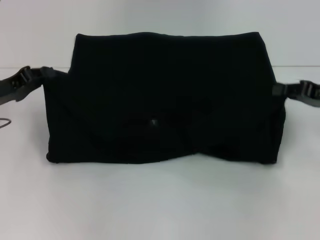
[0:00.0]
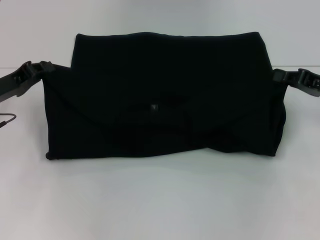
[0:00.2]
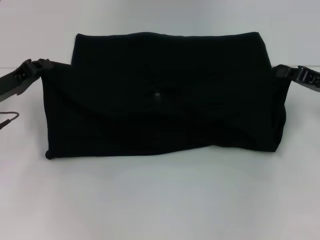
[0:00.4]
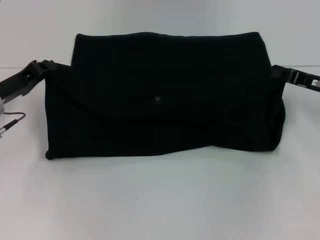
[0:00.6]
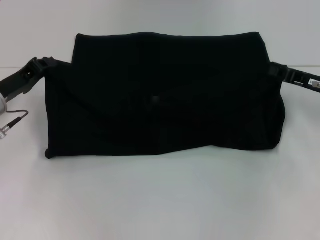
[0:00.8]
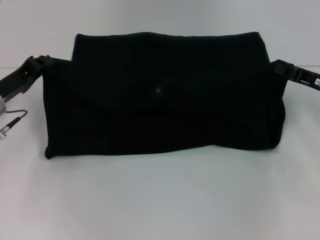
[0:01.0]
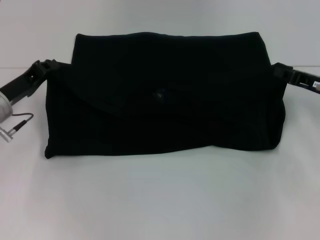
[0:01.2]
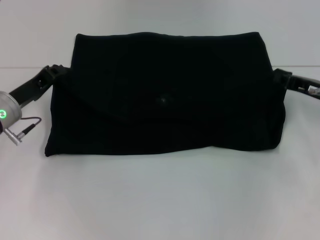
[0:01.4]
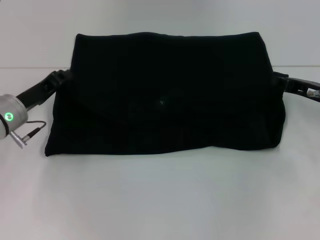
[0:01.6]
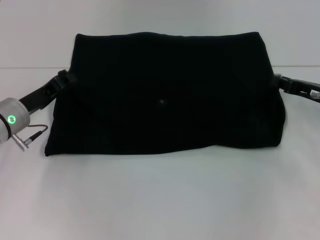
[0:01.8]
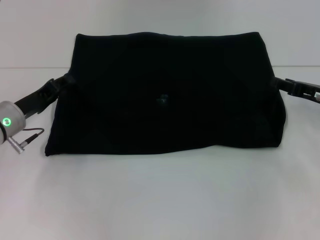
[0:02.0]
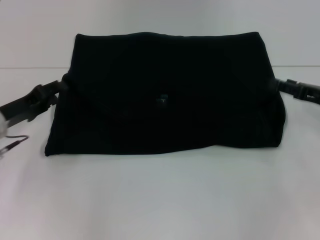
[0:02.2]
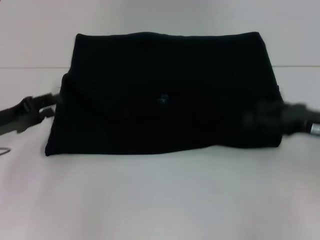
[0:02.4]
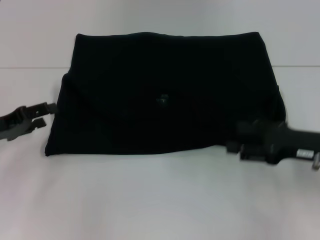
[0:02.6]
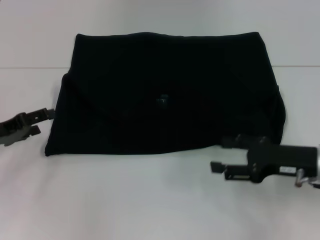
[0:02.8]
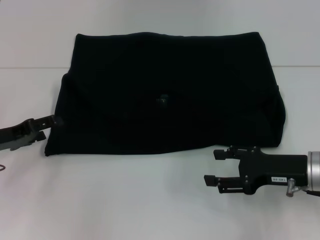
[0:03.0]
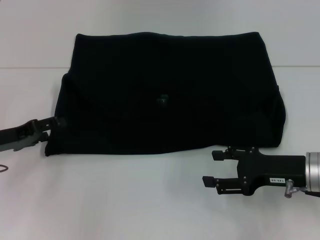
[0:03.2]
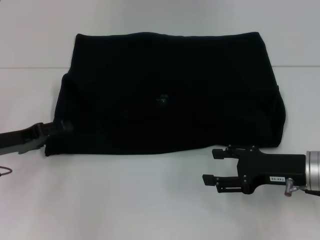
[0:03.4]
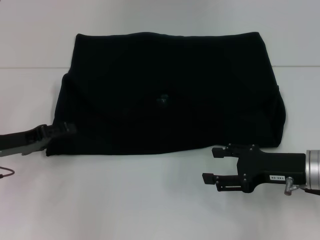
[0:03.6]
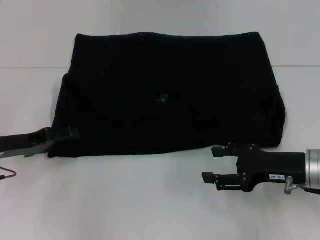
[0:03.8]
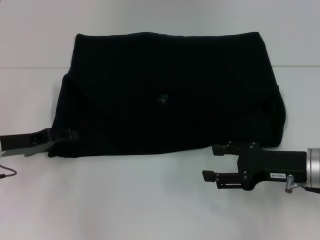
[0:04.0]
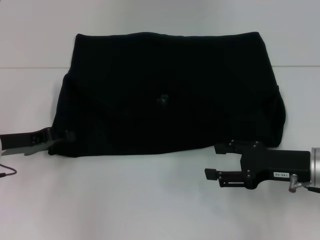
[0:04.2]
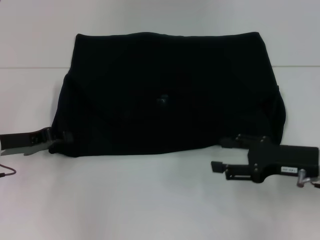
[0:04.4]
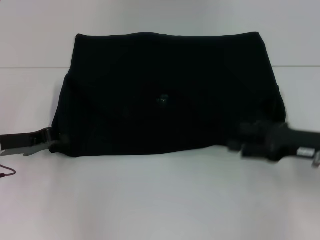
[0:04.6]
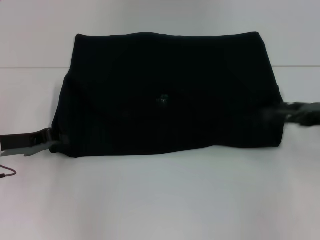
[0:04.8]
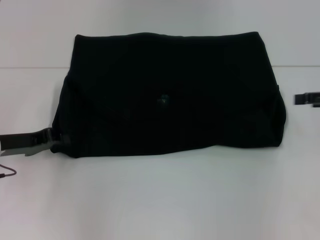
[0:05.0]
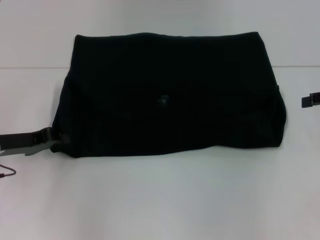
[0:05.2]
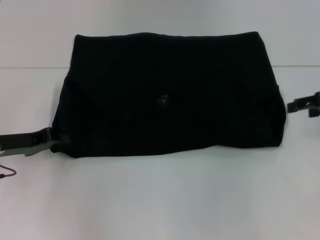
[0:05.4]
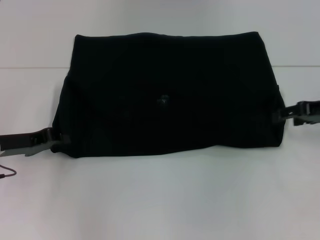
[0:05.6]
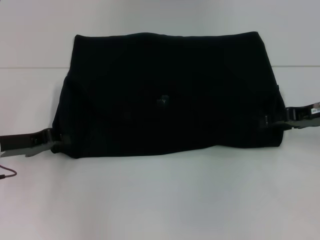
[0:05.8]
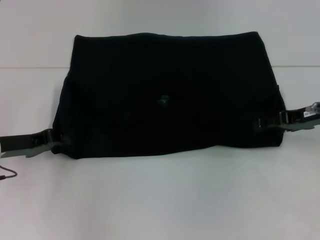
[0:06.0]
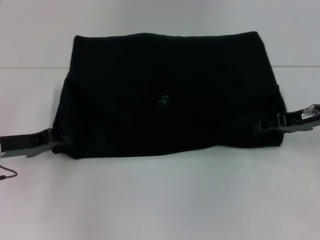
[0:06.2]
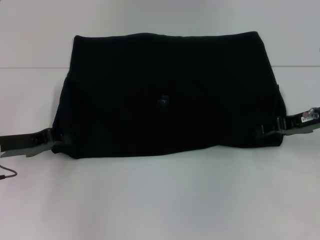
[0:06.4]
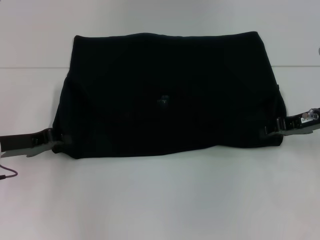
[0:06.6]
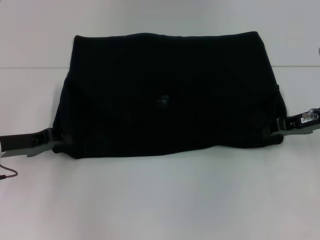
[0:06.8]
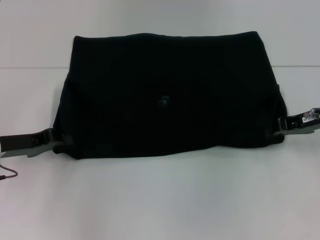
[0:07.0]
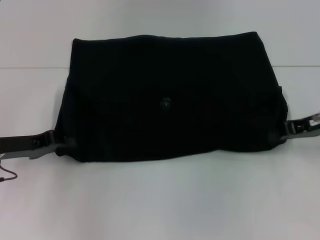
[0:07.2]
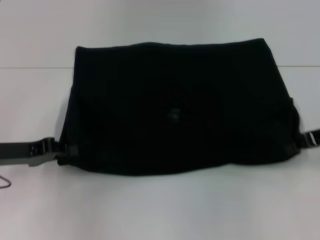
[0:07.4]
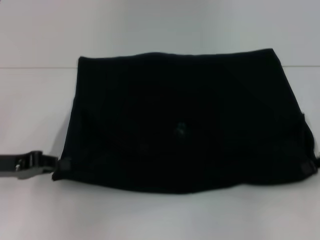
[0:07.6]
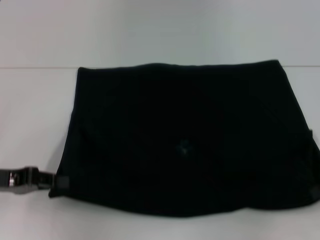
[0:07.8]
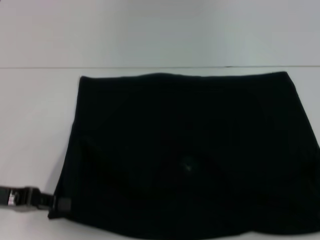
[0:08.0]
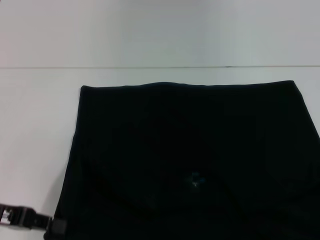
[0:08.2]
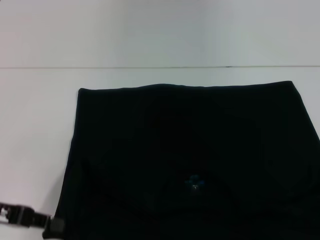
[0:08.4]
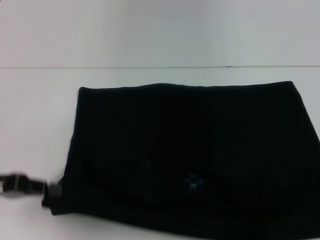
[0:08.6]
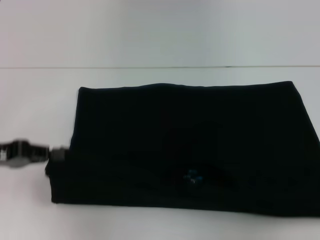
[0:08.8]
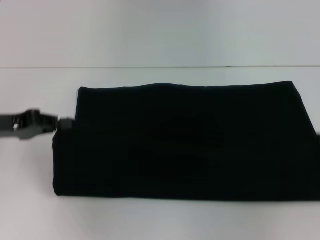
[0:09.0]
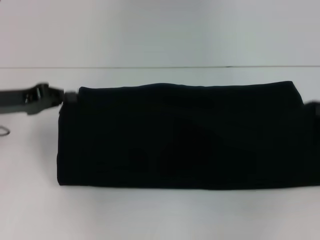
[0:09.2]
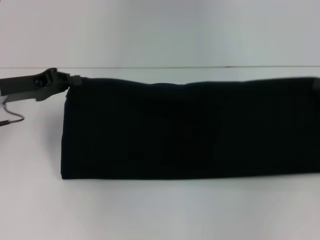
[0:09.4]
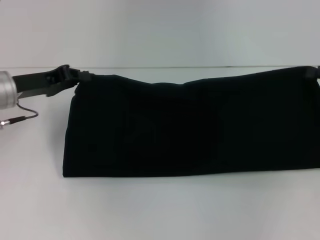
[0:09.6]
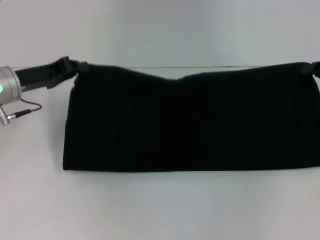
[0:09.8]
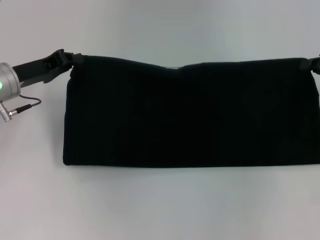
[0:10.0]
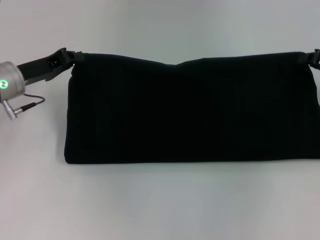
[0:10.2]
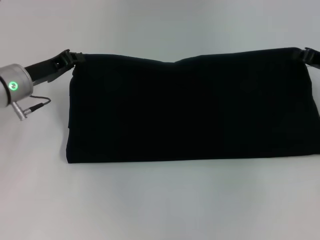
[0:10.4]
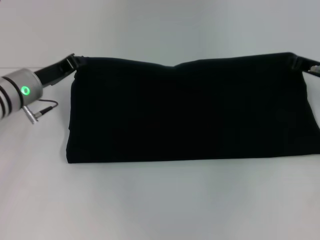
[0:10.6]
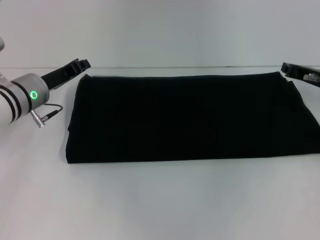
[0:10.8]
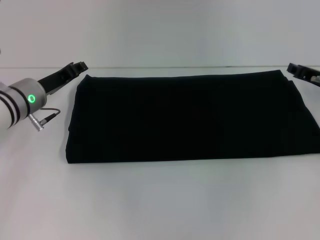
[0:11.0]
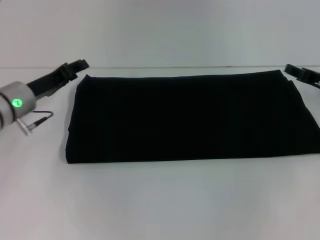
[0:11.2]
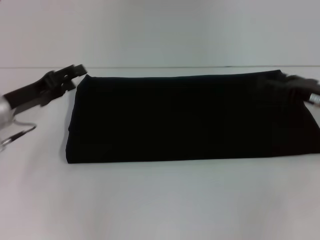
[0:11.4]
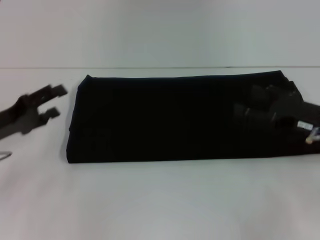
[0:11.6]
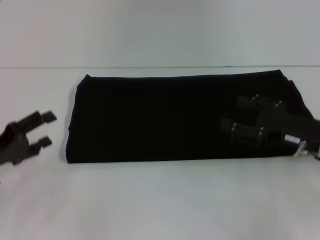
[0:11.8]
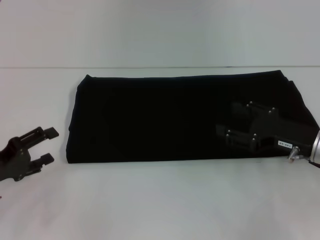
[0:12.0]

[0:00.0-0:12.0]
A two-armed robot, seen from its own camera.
Step, 0:00.0 to 0:02.0: Fold the clothes with your left hand.
Step, 0:00.0 to 0:02.0: Fold the clothes with your right hand.
Step, 0:02.2 to 0:08.2: Pull the clothes with your left hand.
Step, 0:02.2 to 0:08.2: Pull the clothes with your right hand.
Step, 0:08.4 to 0:10.8: Fold the clothes with your right hand.
0:00.0 to 0:01.6: The left gripper shifts about 5 cm to the right, while the right gripper changes place by roughly 5 cm.
0:01.6 to 0:03.0: The left gripper travels to the left by approximately 5 cm, and opens; the right gripper shifts approximately 10 cm backward, and opens.
0:03.0 to 0:04.4: The left gripper closes up.
0:04.4 to 0:06.0: The left gripper closes its fingers. Meanwhile the right gripper is displaced forward by about 10 cm, and reaches approximately 10 cm to the right, then returns.
0:06.0 to 0:07.6: The right gripper shifts some 5 cm to the right, and closes its fingers.
0:07.6 to 0:09.0: The left gripper shifts by roughly 5 cm.
0:09.0 to 0:10.4: The left gripper shifts about 10 cm forward and to the right. Meanwhile the right gripper is displaced forward and to the left by about 10 cm.
0:10.4 to 0:12.0: Both grippers travel together backward, to the left and downward, about 15 cm. The left gripper opens. Meanwhile the right gripper opens up.

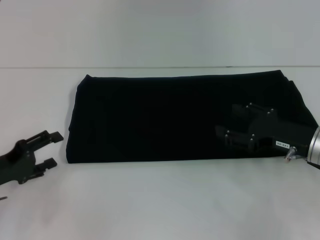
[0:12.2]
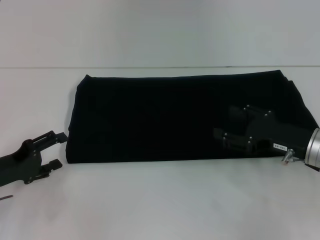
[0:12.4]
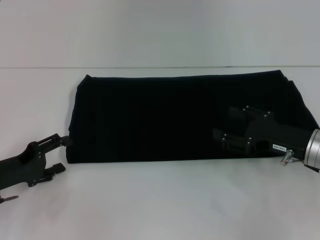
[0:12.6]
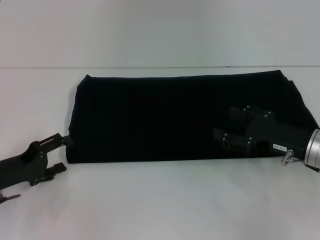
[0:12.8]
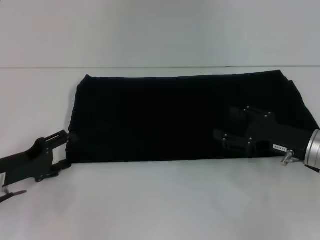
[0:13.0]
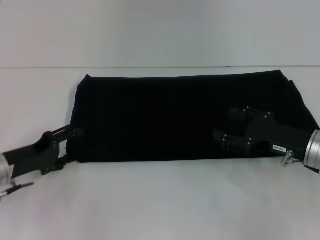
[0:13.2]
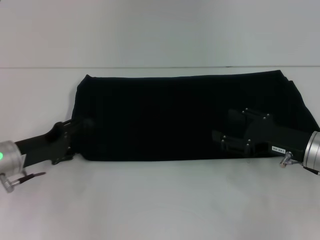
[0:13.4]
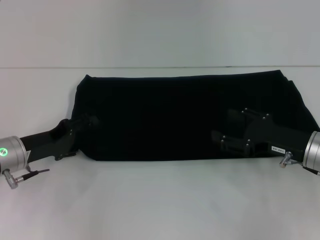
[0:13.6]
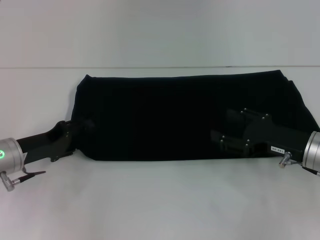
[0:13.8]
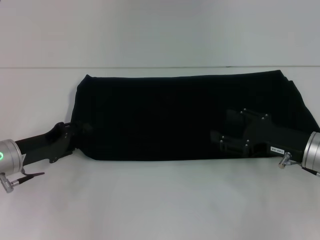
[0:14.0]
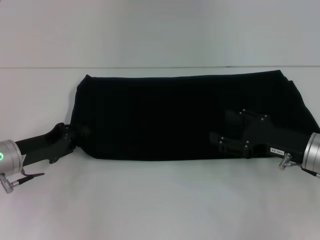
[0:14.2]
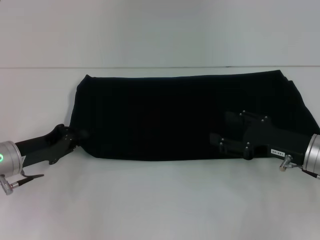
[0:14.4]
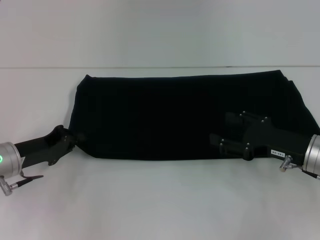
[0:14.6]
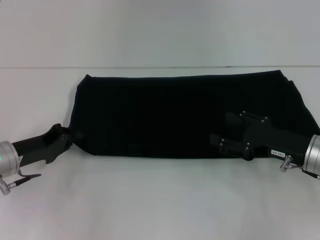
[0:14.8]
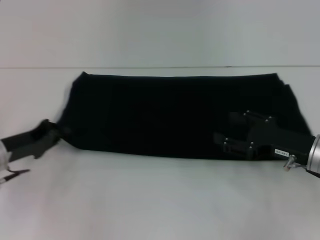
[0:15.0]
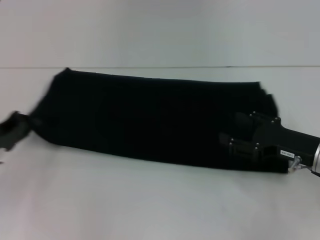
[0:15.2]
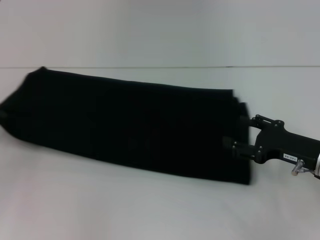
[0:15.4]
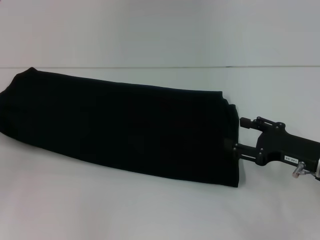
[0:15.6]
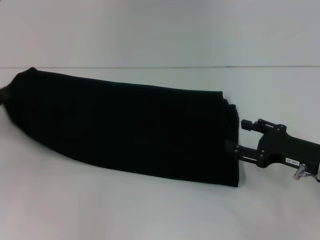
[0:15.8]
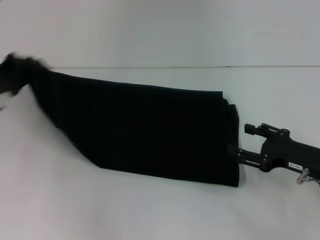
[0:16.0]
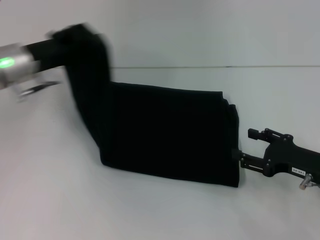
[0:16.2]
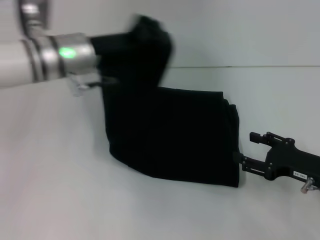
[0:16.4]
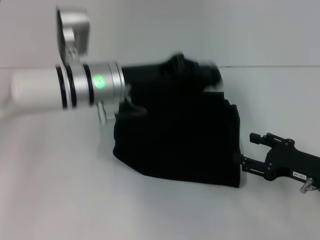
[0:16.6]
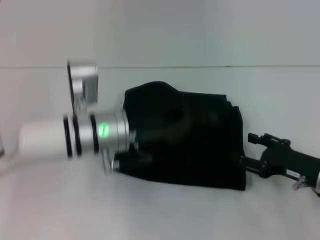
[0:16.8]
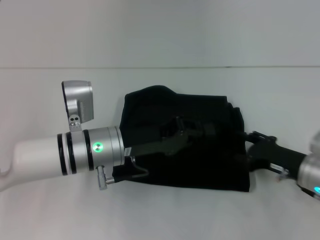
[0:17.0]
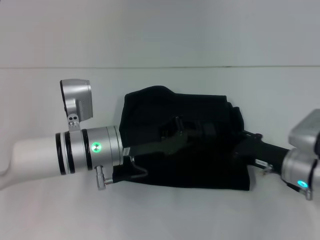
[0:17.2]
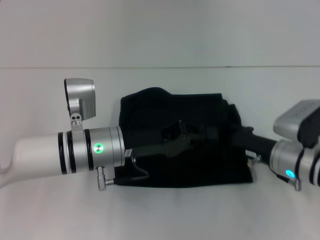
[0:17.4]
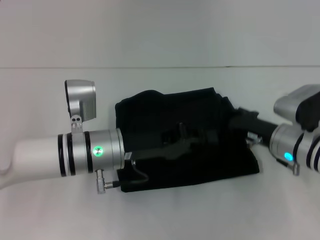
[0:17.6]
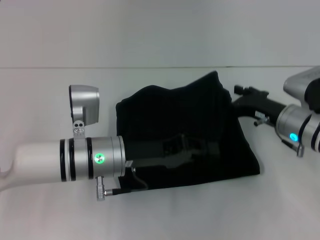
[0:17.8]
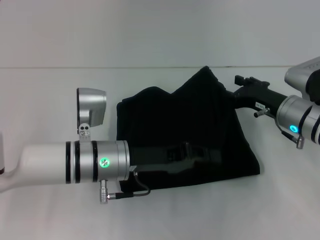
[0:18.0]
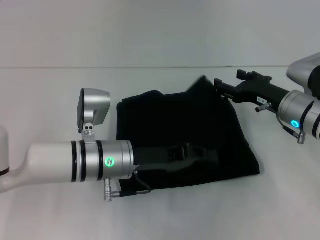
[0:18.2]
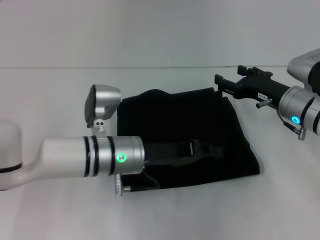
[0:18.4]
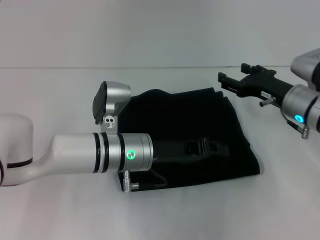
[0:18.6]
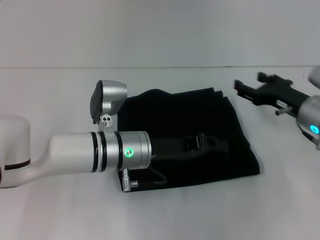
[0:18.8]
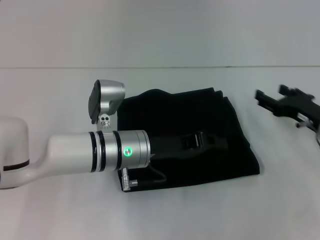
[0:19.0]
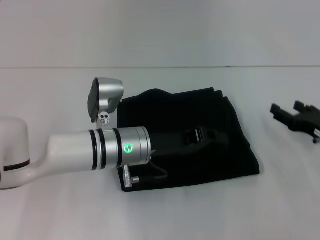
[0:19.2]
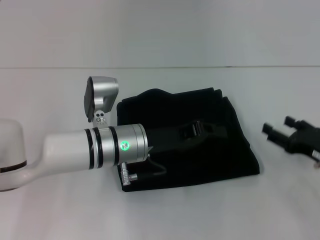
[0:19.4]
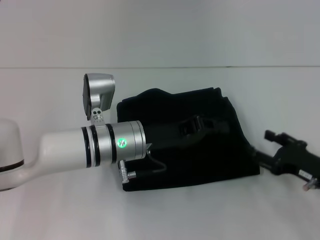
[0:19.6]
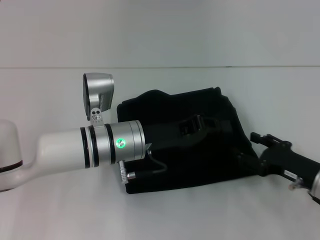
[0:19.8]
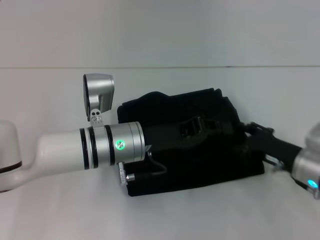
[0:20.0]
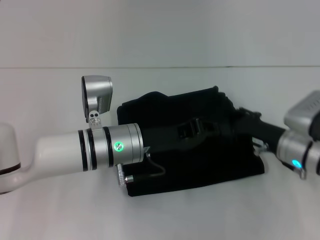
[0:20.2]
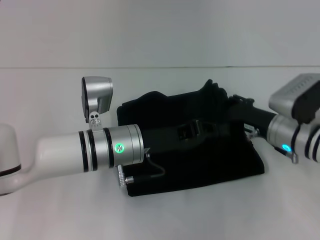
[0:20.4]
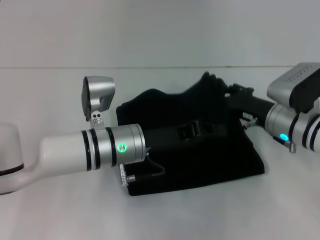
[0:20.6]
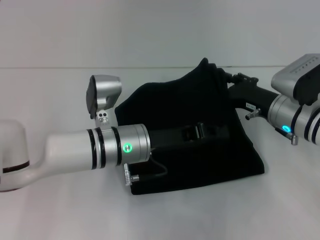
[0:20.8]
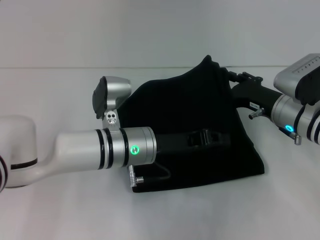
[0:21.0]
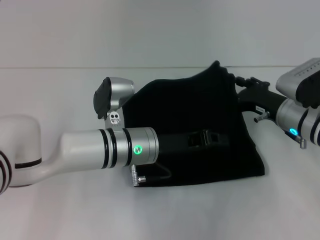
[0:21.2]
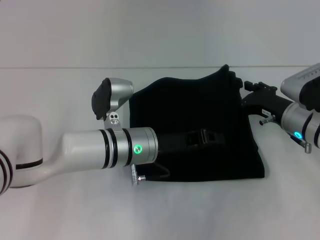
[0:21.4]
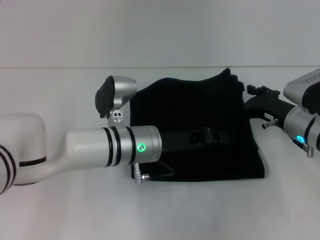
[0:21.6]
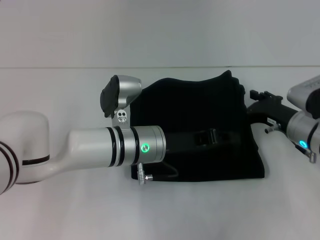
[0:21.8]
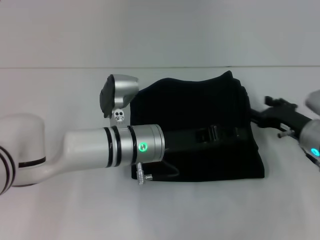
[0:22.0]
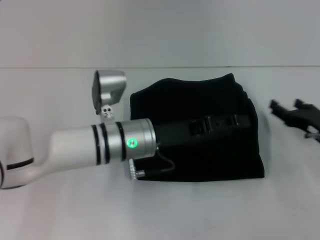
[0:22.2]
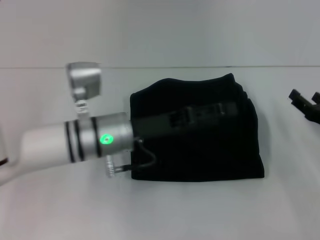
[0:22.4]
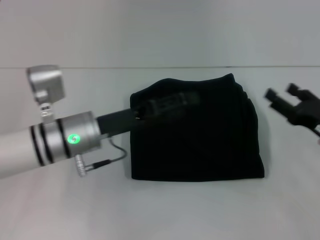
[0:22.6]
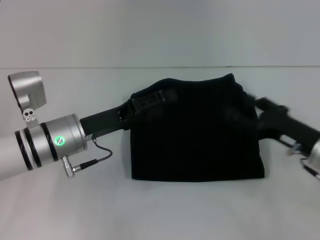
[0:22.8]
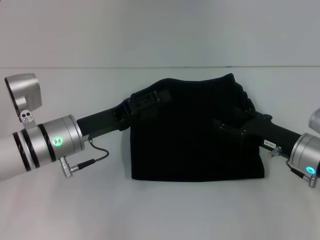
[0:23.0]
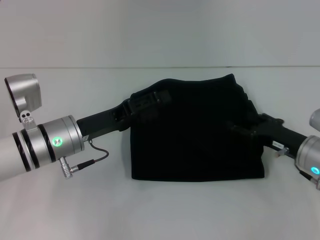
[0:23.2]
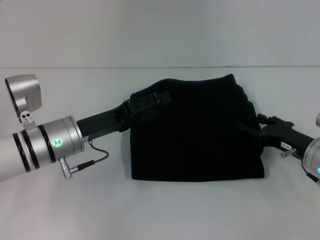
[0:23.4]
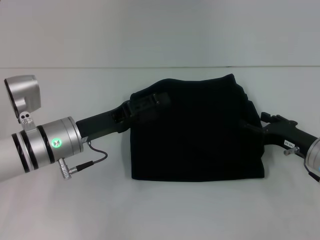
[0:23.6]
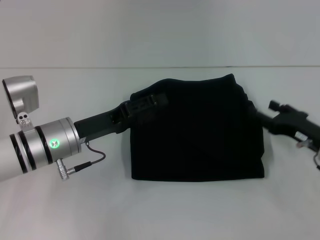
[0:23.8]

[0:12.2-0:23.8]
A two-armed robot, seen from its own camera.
Step, 0:12.2 to 0:19.2: Fold the clothes with your left hand.
0:12.2 to 0:13.6: The left gripper travels forward and to the right by approximately 10 cm.
0:13.6 to 0:15.0: The left gripper closes.
0:15.0 to 0:16.6: The left gripper travels to the right and upward by about 20 cm.
0:16.6 to 0:18.0: The right gripper moves forward and to the left, roughly 10 cm. Meanwhile the left gripper travels downward and backward by about 10 cm.
0:18.0 to 0:19.4: The right gripper moves backward and to the right, roughly 10 cm.
0:19.4 to 0:21.0: The right gripper shifts approximately 15 cm to the left and forward.
0:21.0 to 0:22.4: The left gripper opens. The right gripper goes some 10 cm to the right and backward.
0:22.4 to 0:23.8: The left gripper shifts some 10 cm to the left.
